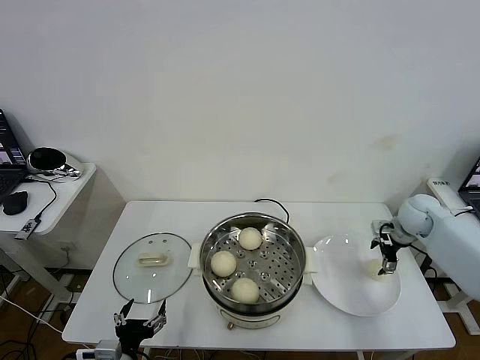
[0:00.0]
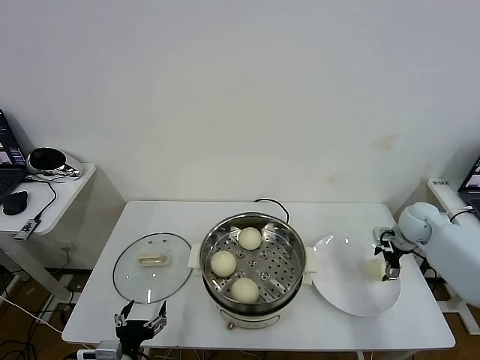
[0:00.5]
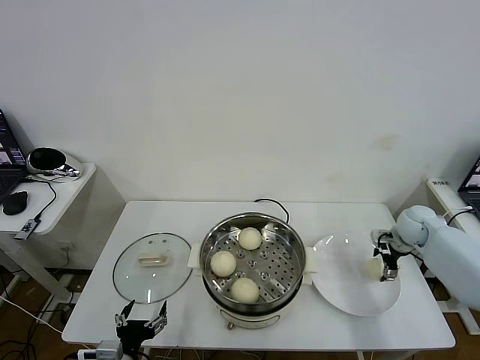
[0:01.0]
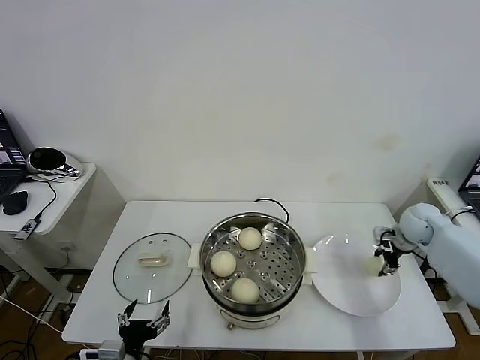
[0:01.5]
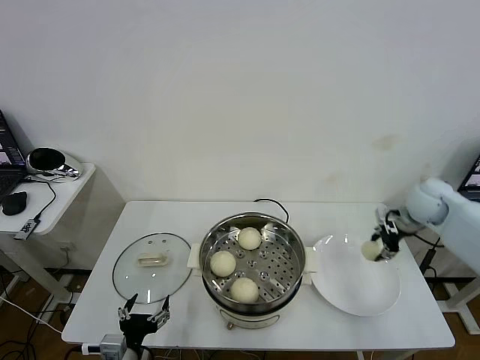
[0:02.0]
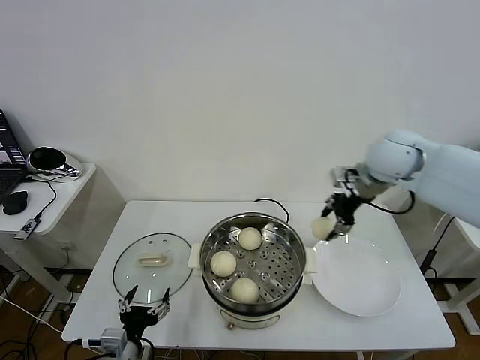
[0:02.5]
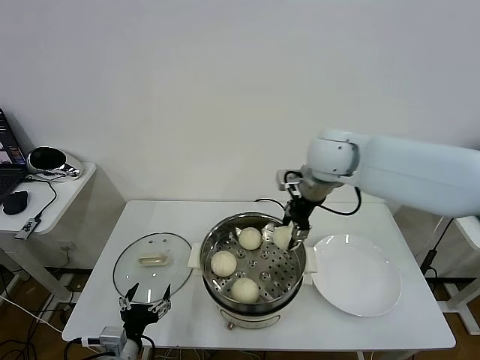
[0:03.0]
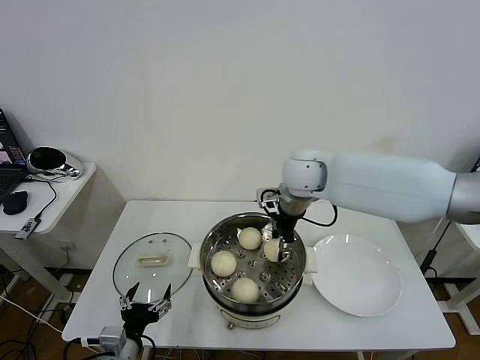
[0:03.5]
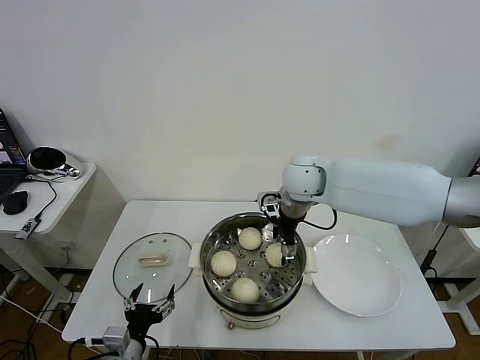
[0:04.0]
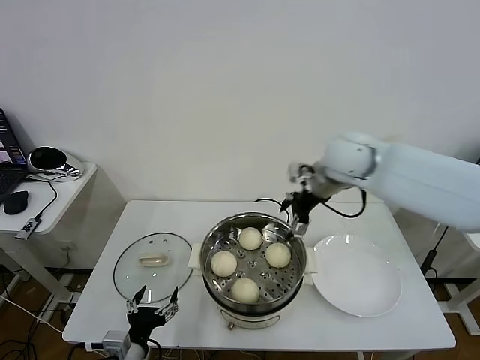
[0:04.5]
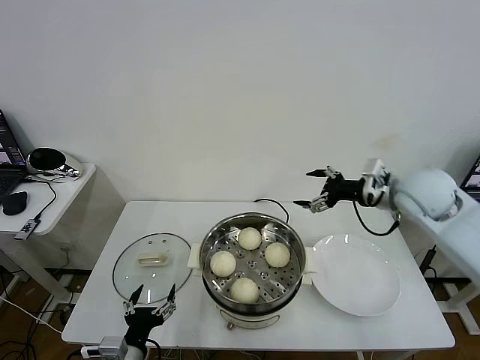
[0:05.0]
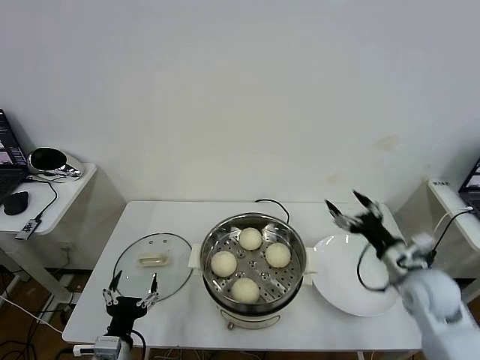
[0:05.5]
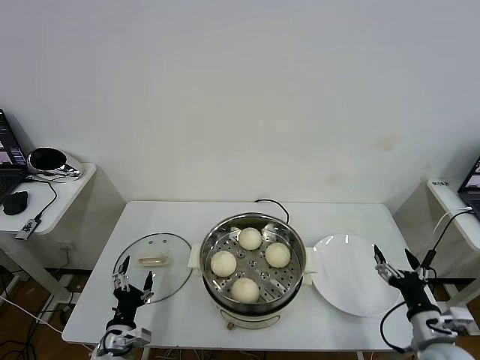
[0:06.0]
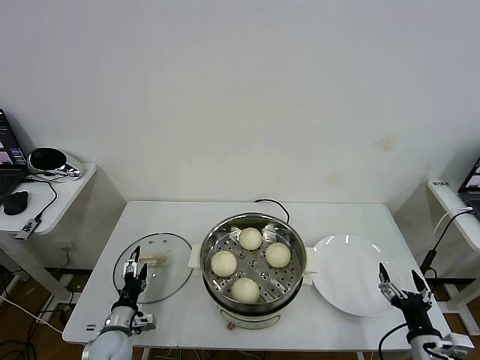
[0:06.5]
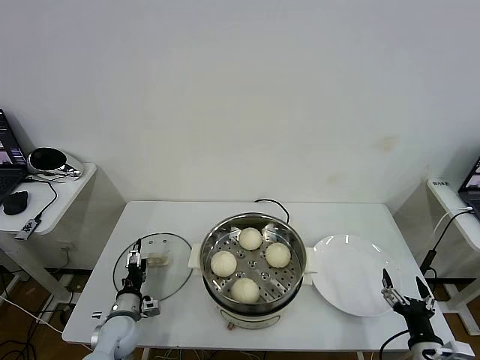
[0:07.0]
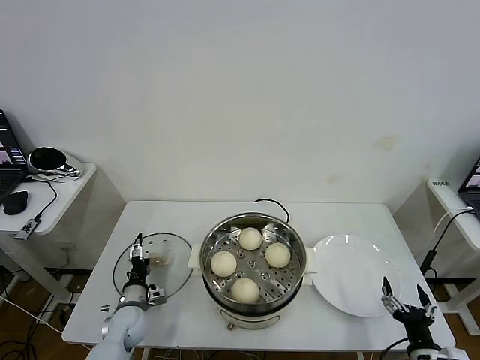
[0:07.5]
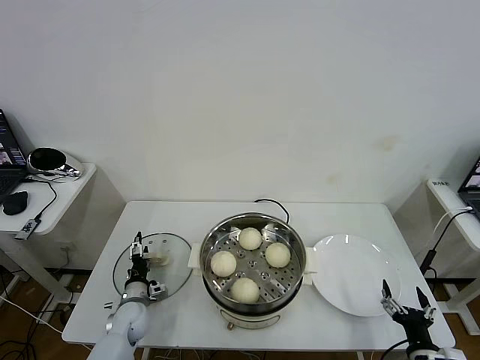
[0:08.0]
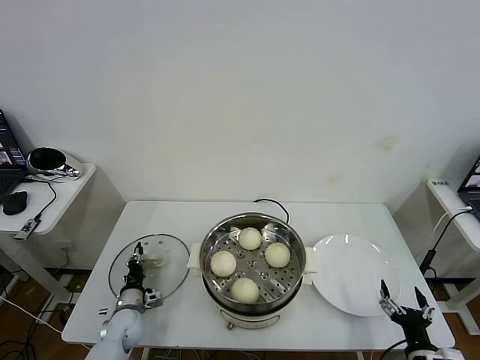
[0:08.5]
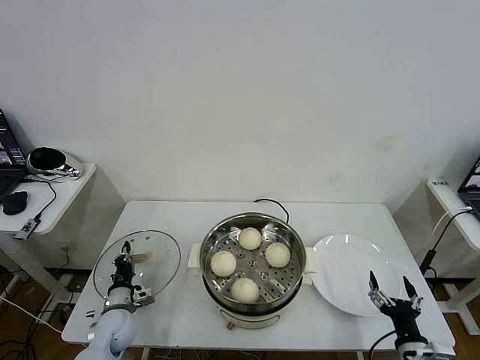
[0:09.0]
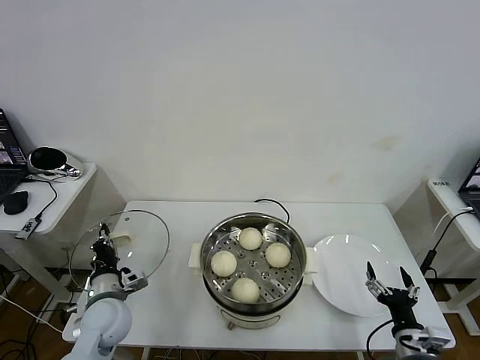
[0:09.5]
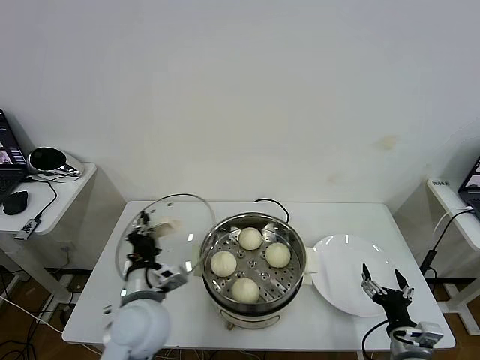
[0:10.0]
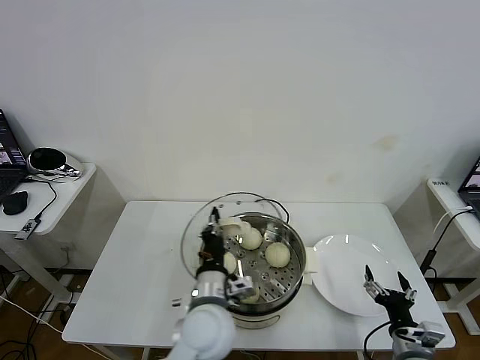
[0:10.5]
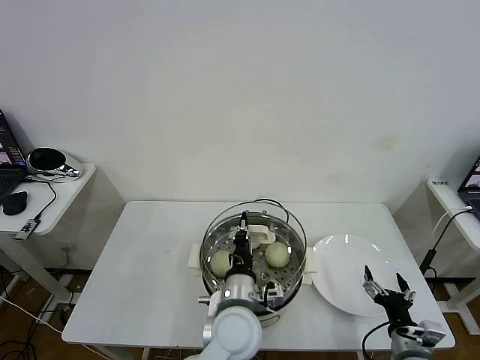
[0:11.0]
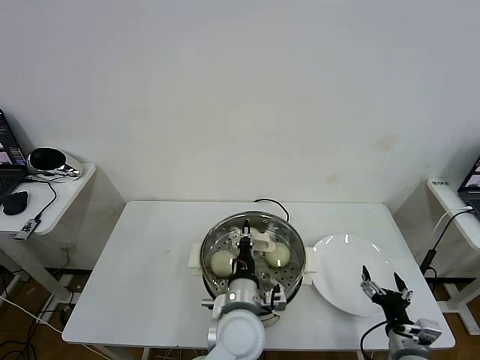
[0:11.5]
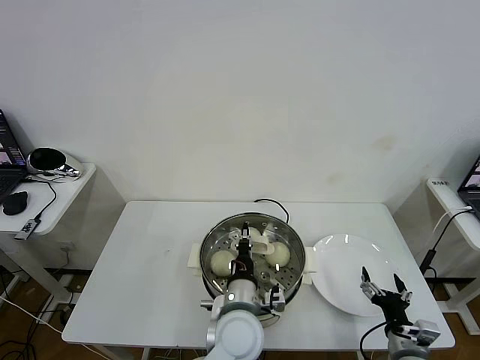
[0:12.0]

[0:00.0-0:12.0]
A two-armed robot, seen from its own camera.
Task of the whole recording: take steamed baozi put them in steamer then cover it.
Step, 0:01.5 to 0:04.0: Place the baozi on the steamer with right gripper.
Step, 0:04.5 to 0:08.5: Grasp the pot lid with left gripper.
0:00.0 to 0:02.0: The right gripper goes some 5 cm upward, and closes its fingers.
0:02.0 to 0:04.0: The right gripper goes about 30 cm to the left, and opens.
0:04.0 to 0:06.0: The right gripper moves backward, to the right and downward, about 50 cm. Meanwhile the left gripper shifts about 5 cm downward.
0:06.0 to 0:08.0: The right gripper travels backward and downward by roughly 10 cm. Meanwhile the left gripper is displaced forward and downward by some 15 cm.
0:08.0 to 0:10.0: The left gripper moves upward and to the right, some 25 cm, and closes. The right gripper shifts by roughly 5 cm.
0:10.0 to 0:12.0: The left gripper shifts some 20 cm to the right.

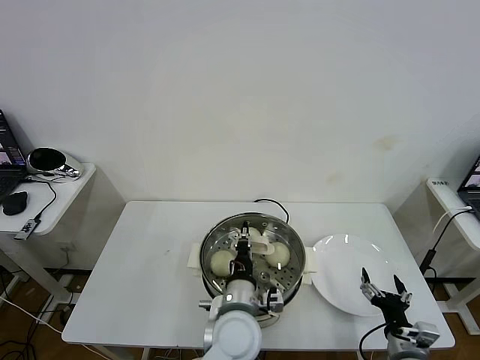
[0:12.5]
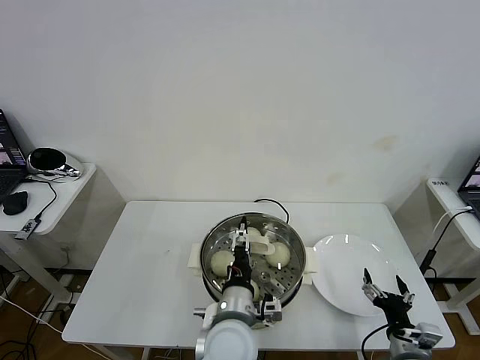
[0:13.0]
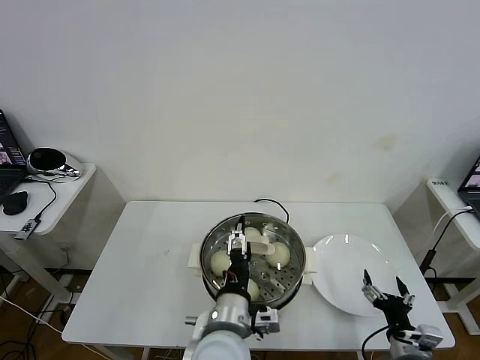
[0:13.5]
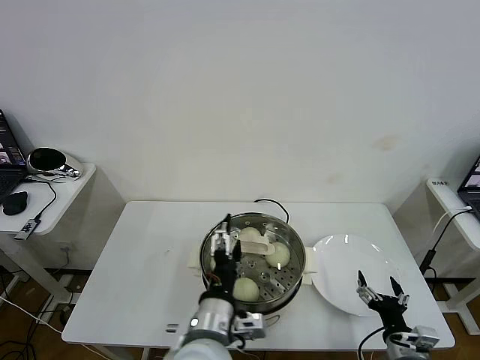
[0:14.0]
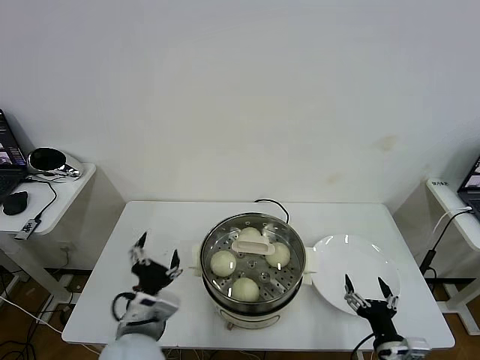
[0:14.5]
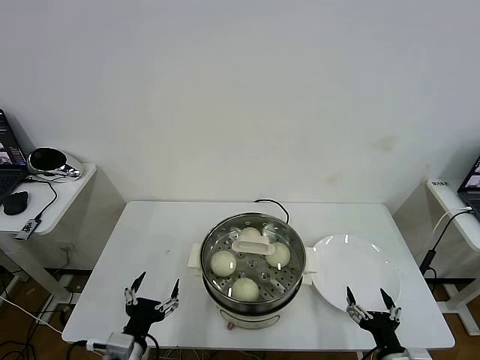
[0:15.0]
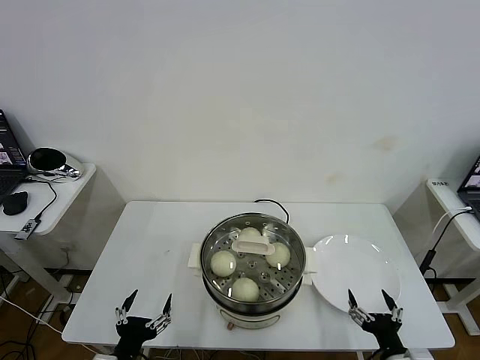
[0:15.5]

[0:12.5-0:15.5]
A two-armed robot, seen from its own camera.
Task of the whole recording: take steamed baozi put them in steamer then cover it.
0:12.5 to 0:14.0: The left gripper goes some 10 cm backward and upward, and opens.
0:14.0 to 0:15.5: The left gripper moves to the left and downward, some 25 cm.

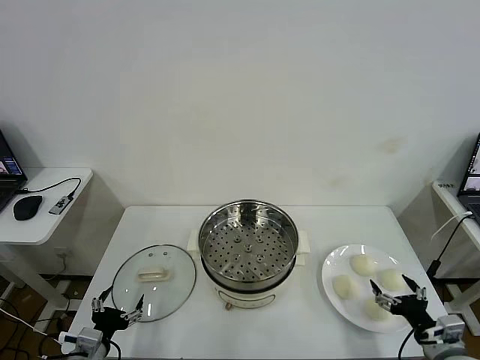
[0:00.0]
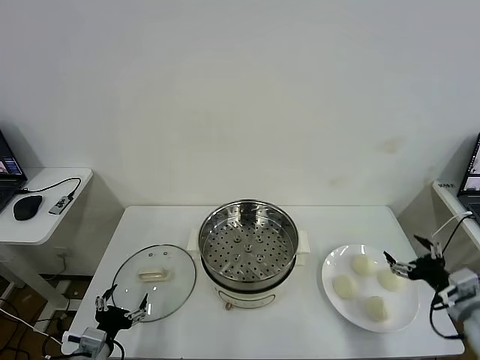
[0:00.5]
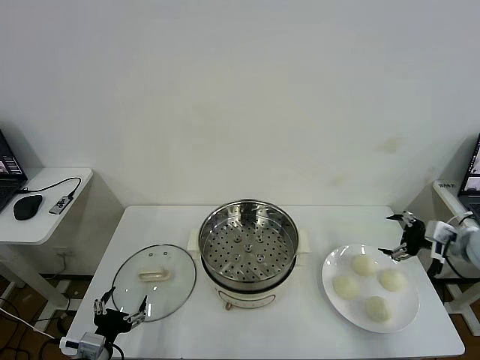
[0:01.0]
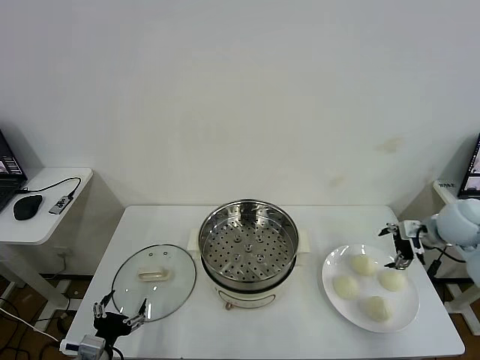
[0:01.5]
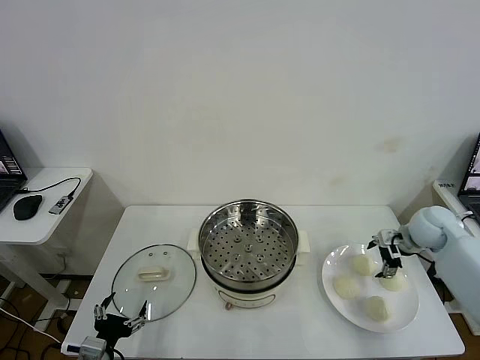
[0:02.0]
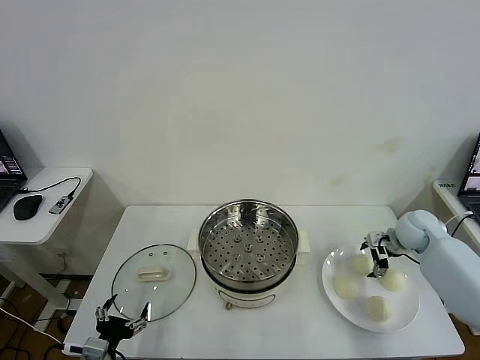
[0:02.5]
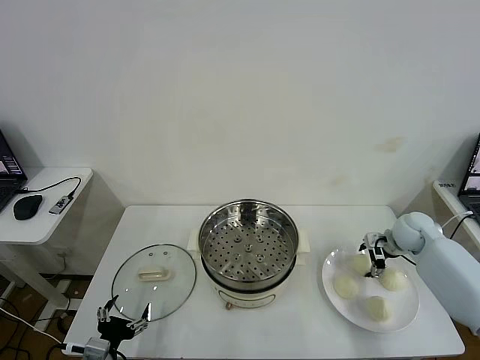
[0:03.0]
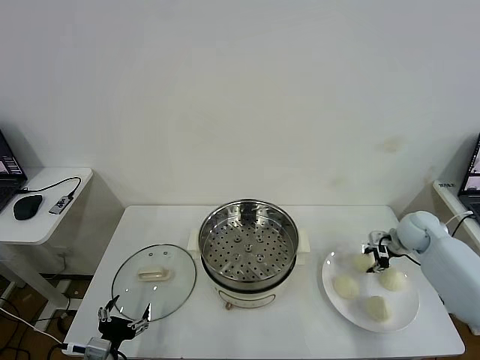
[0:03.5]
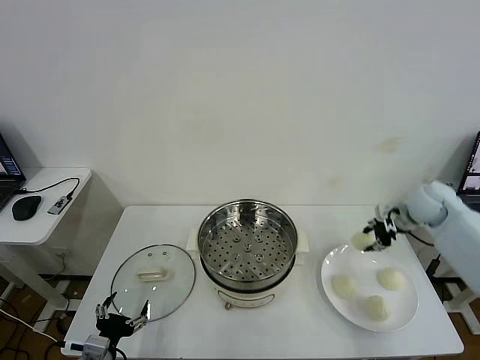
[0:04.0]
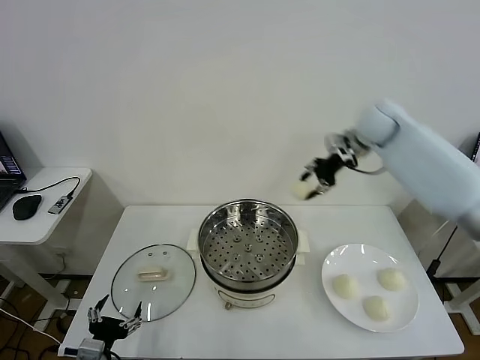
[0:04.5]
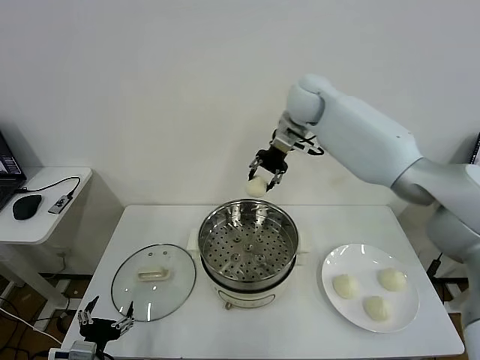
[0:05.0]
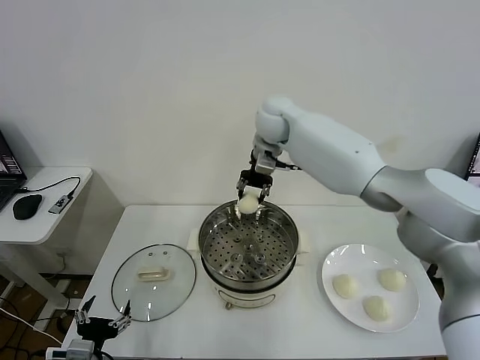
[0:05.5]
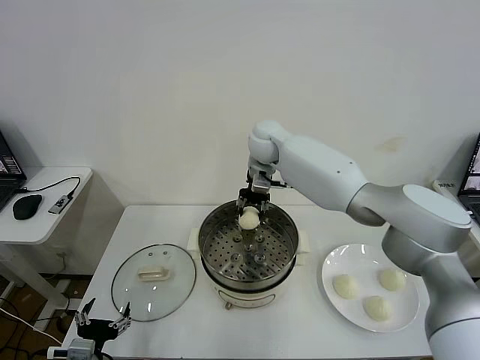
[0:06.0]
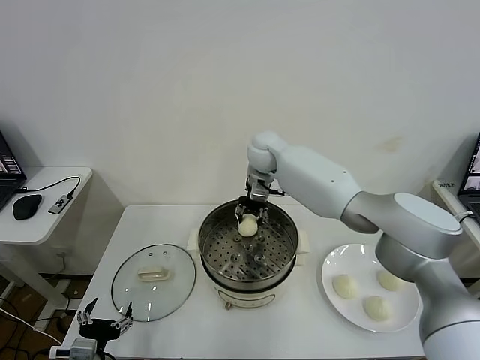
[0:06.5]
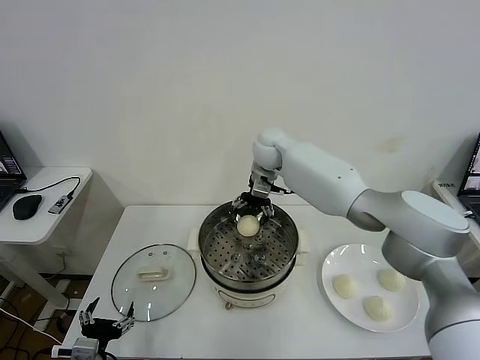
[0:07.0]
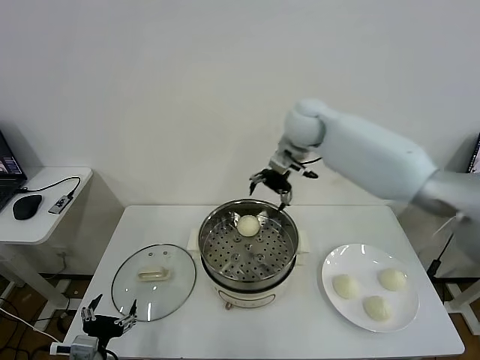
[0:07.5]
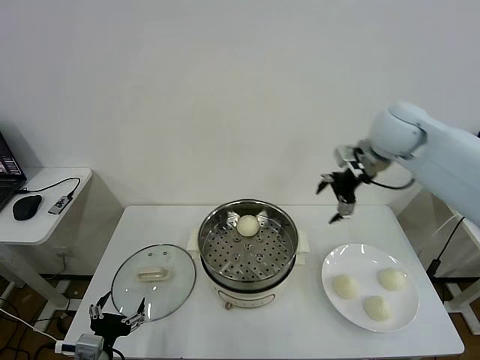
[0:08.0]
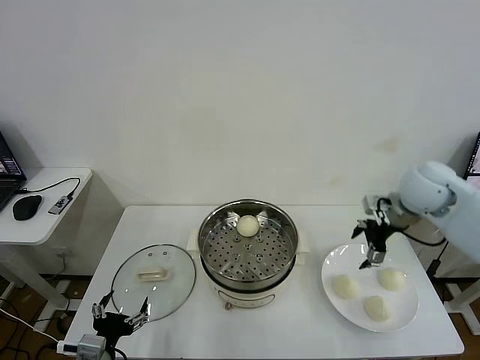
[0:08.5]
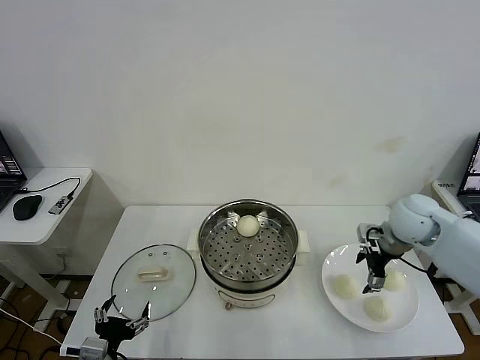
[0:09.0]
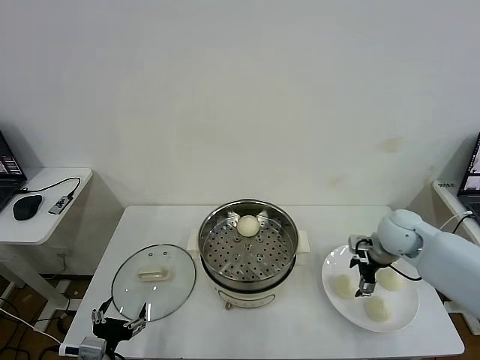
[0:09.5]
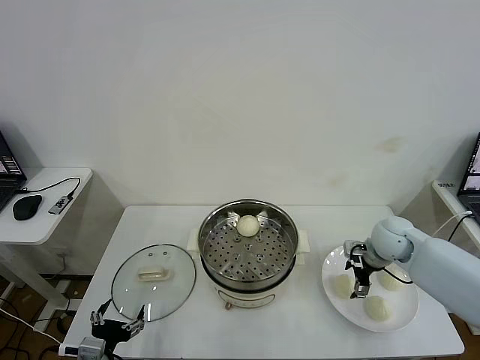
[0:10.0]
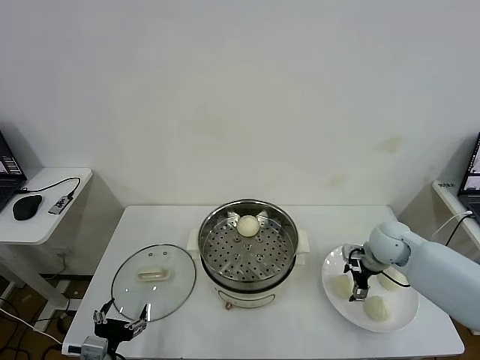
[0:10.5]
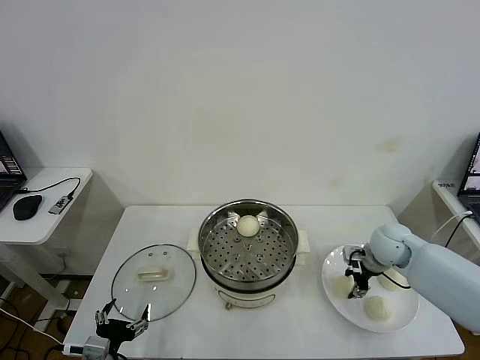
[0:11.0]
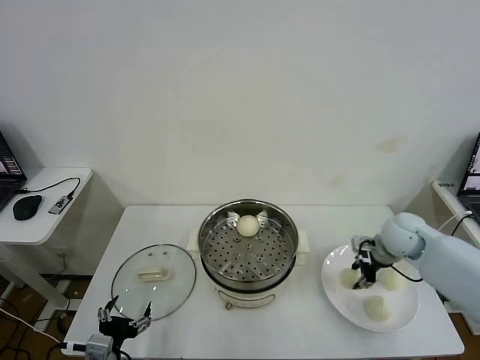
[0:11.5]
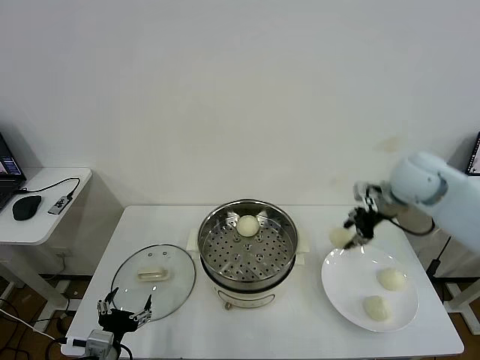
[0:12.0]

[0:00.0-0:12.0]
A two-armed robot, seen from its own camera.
Task of the whole recording: take steamed baozi put them in steamer then cover it.
Step, 0:00.0 to 0:03.0: Grasp the baozi in the plate with right gripper.
Step, 0:03.5 to 0:07.0: Place the baozi on the steamer with right gripper.
Step, 0:07.5 to 0:11.0: Grasp the baozi in the plate with right gripper.
0:02.0 to 0:04.0: The right gripper travels upward by some 10 cm, and closes up.
0:04.0 to 0:06.0: The right gripper is displaced to the left by some 35 cm.
0:06.0 to 0:08.0: The right gripper shifts approximately 30 cm to the right and backward, and opens.
0:08.0 to 0:10.0: The right gripper shifts roughly 25 cm downward.
0:10.0 to 0:12.0: The right gripper moves upward, about 20 cm, and closes its fingers.
